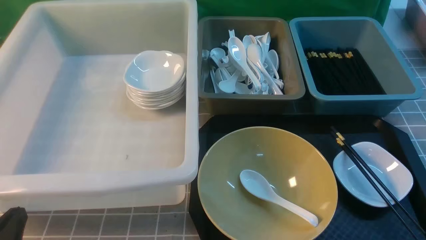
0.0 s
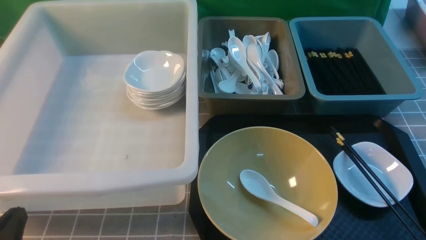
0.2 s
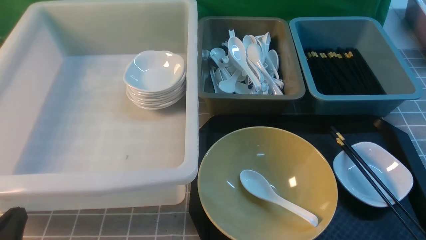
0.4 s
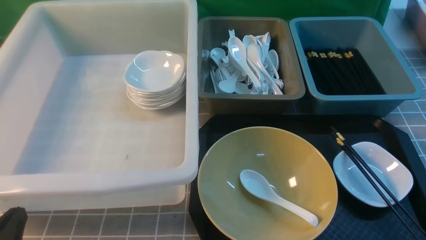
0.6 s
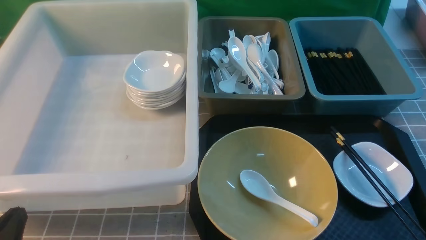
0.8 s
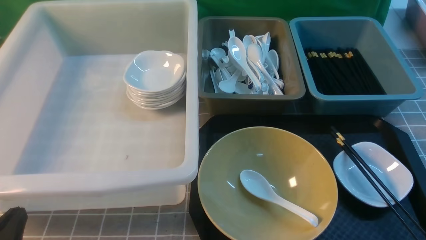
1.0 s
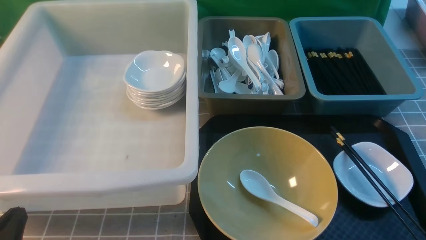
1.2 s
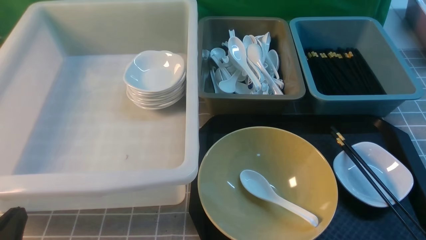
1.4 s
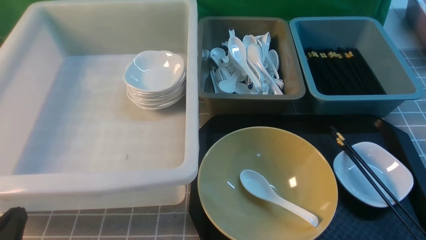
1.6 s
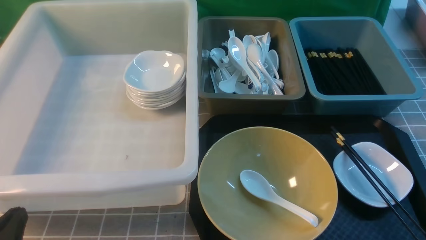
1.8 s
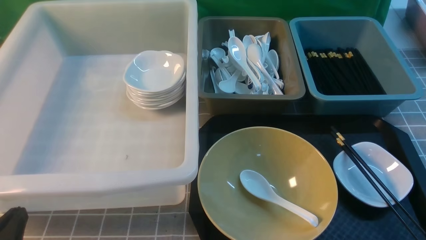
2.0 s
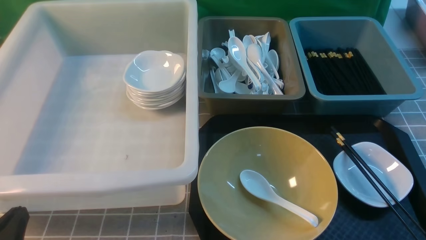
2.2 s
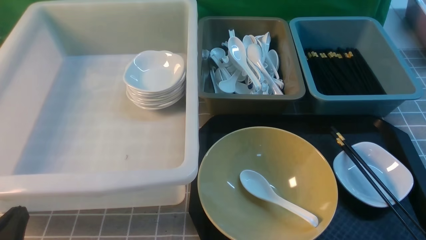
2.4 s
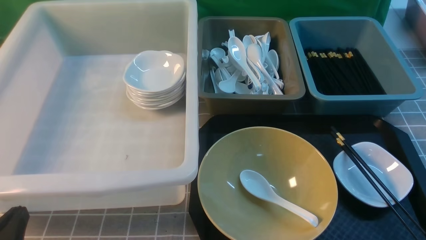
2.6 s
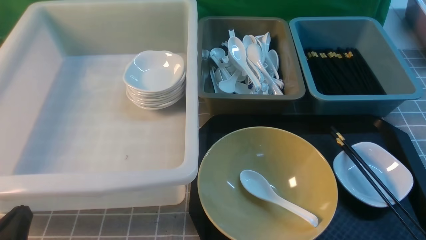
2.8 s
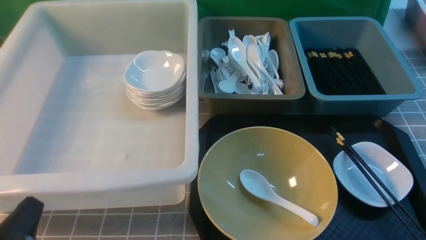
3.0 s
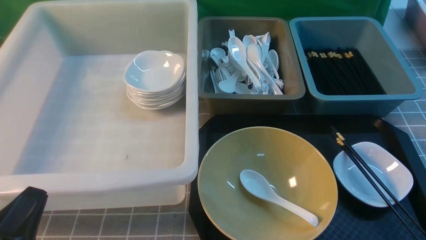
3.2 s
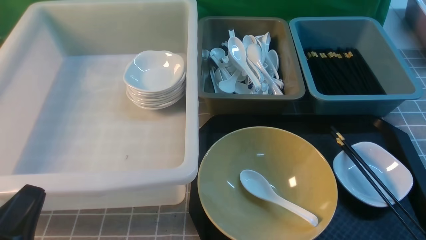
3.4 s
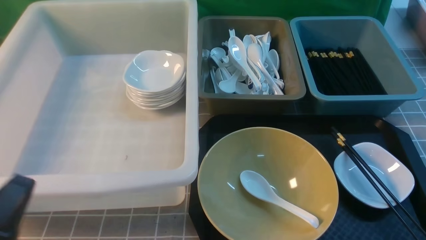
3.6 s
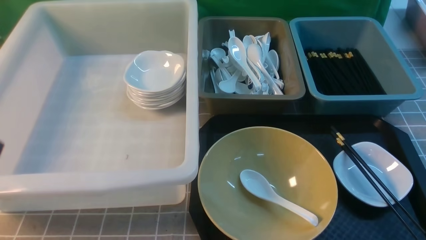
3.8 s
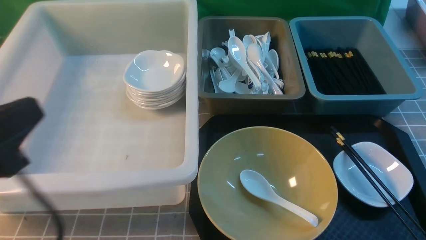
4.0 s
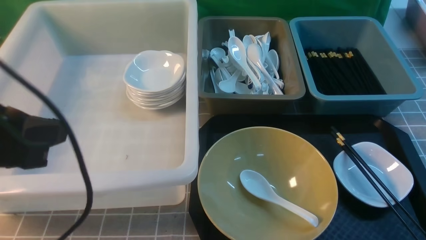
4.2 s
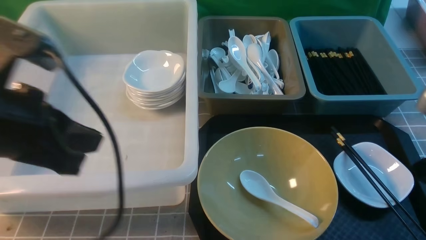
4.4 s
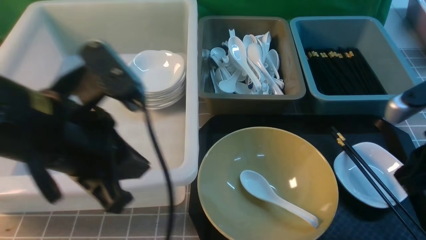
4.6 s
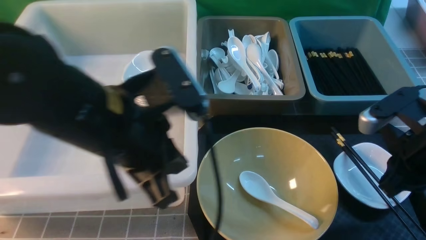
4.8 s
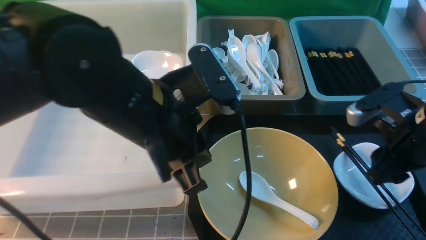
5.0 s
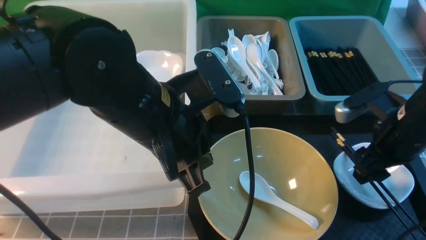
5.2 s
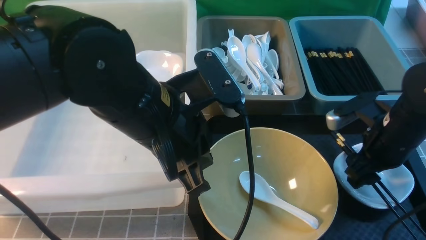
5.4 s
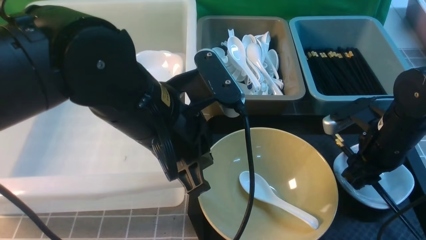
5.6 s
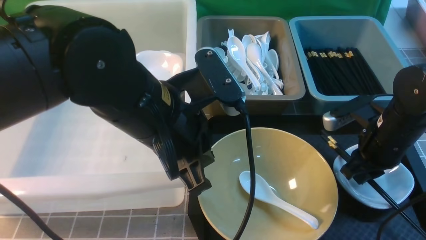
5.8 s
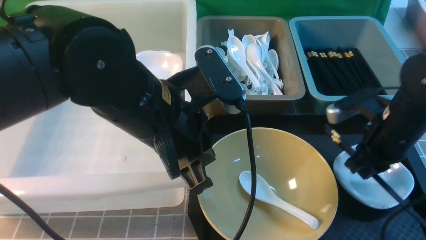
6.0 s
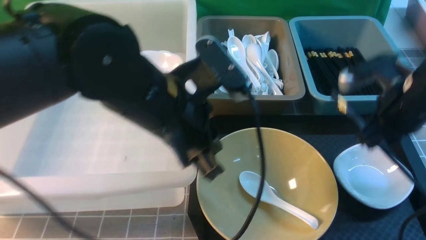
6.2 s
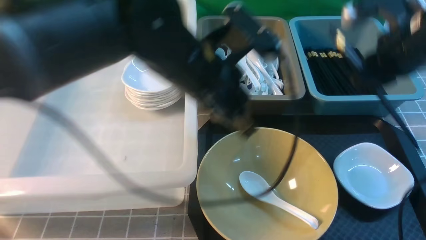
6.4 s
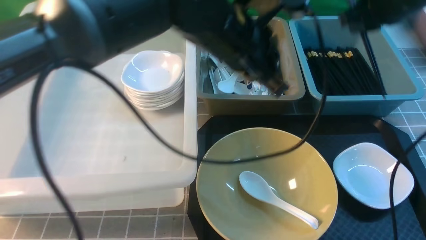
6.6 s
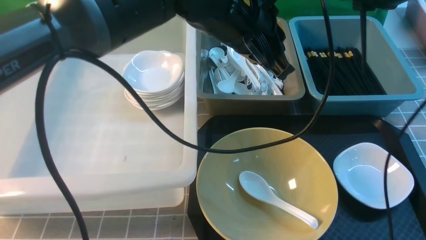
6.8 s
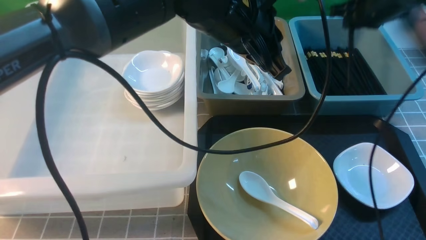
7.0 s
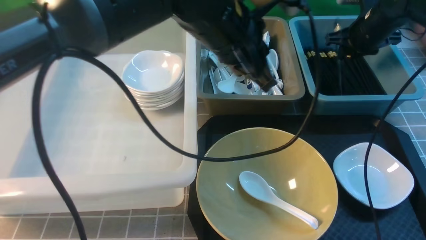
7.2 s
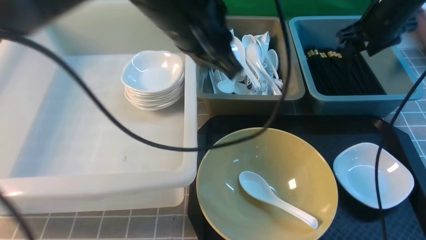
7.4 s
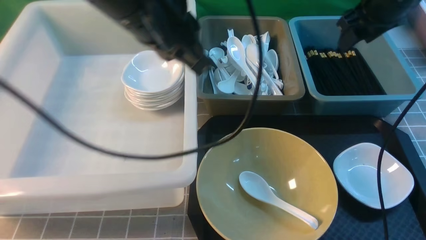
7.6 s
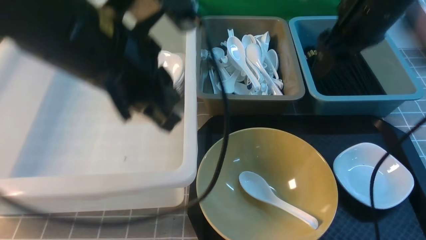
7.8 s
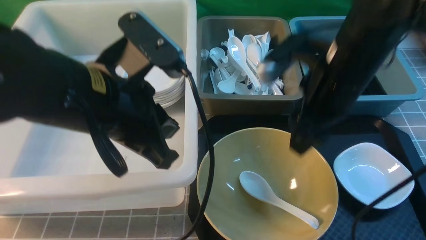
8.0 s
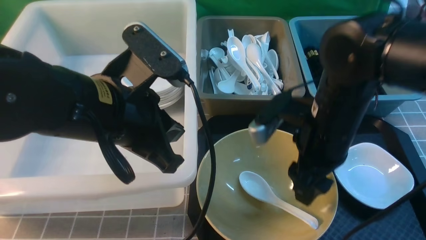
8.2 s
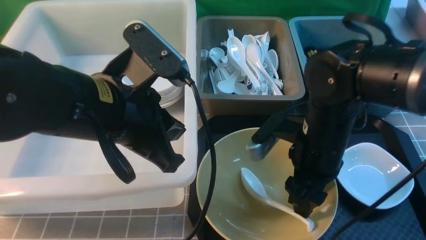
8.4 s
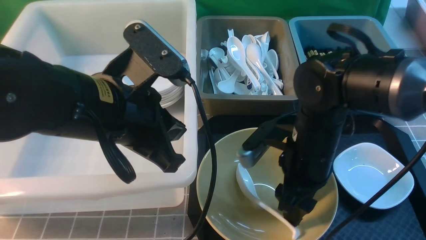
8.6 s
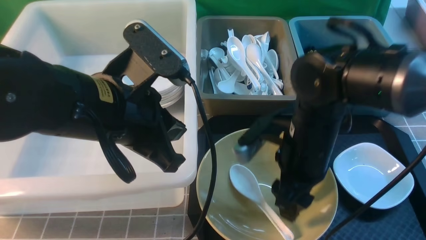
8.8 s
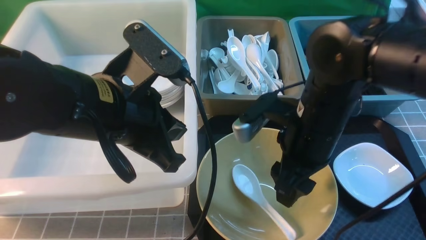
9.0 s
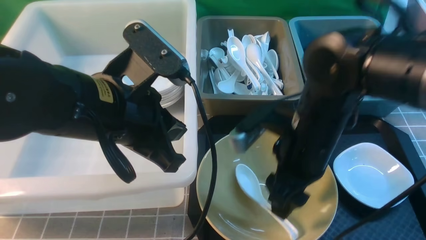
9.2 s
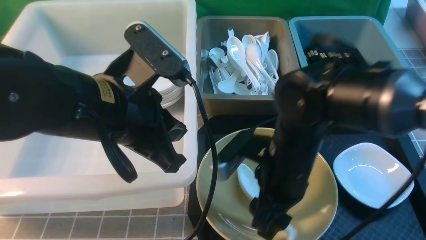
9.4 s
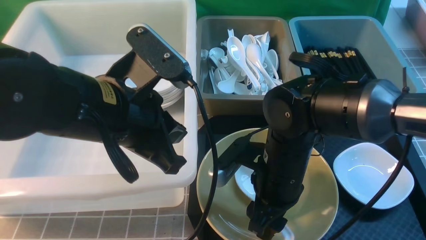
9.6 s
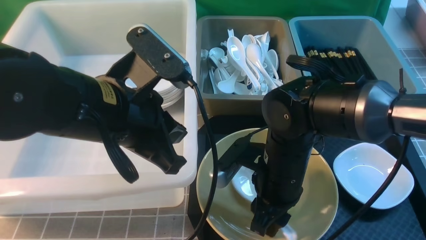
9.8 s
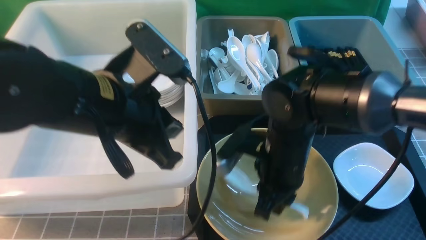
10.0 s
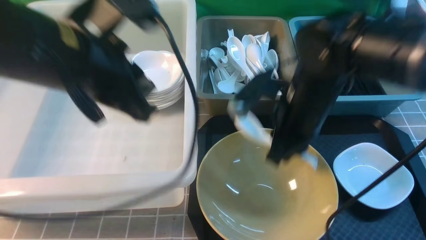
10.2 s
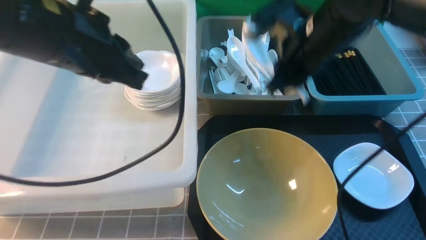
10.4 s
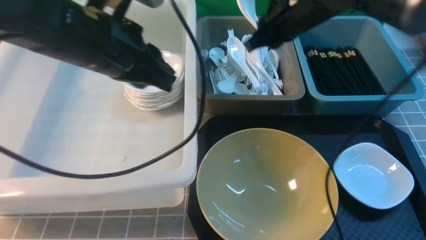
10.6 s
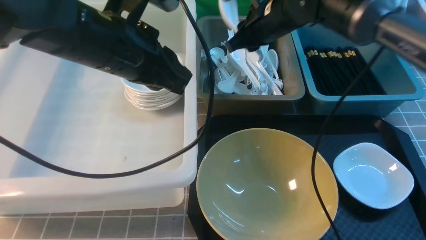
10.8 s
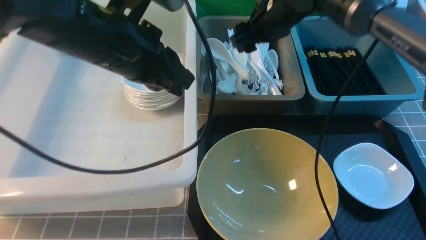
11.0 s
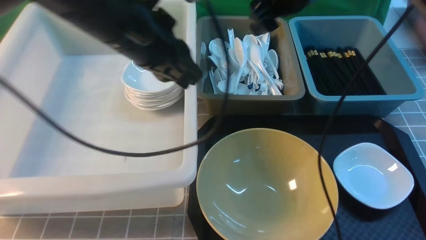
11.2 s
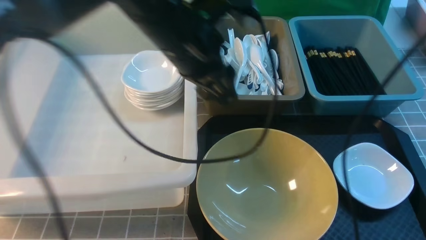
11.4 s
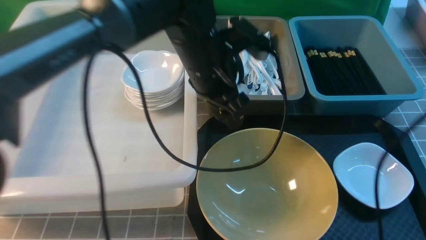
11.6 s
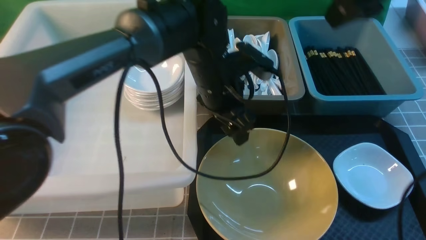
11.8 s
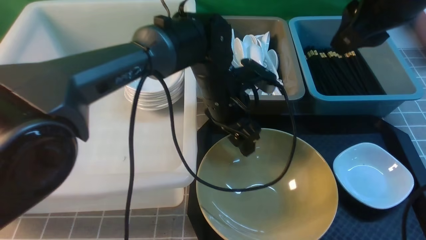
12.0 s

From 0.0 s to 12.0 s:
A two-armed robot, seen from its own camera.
Task of the whole recording: on grey table put chopsticks spoon bowls plates into blue grey white boxes.
Step, from 0.0 s to 6.2 s: use the right arm to grab the chopsticks.
Step, from 6.4 s to 7.2 s: use the right arm to put the chopsticks into the small storage box on the right.
Step, from 7.4 s to 10.0 s: use the right arm to grab the soup spoon in the middle.
Step, from 10.4 s to 11.2 s: use the right arm to put the soup spoon into the small storage box in the middle.
From 3.0 s to 4.4 s: The left gripper heads upward and forward, covering some 20 cm. Meanwhile the right gripper goes approximately 20 cm forward and upward, and closes up.
From 4.4 s to 6.0 s: The right gripper goes about 15 cm forward and downward, and opens, then closes again; the left gripper moves to the right, roughly 15 cm.
From 6.0 s to 7.6 s: The left gripper moves upward, some 10 cm; the right gripper moves upward and forward, approximately 15 cm, and opens.
From 7.6 s to 9.0 s: The left gripper travels downward and backward by some 10 cm. Meanwhile the right gripper travels backward, to the left and downward by approximately 20 cm.
From 9.0 s to 10.4 s: The right gripper heads forward and upward, covering roughly 10 cm, and closes up, while the left gripper shifts by some 5 cm.
From 10.4 s to 12.0 s: The left gripper moves to the right, downward and forward, some 25 cm, and opens up, while the right gripper shifts approximately 15 cm upward, to the right and backward, and opens up.

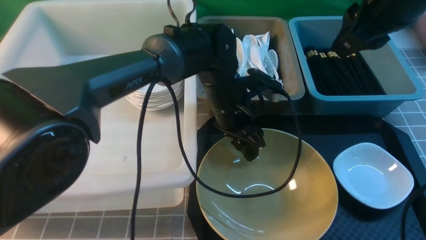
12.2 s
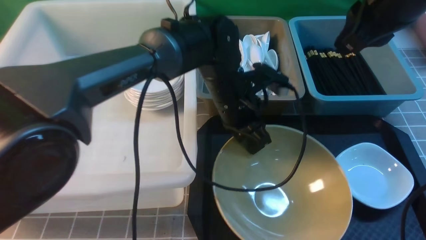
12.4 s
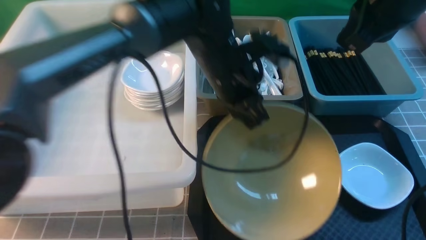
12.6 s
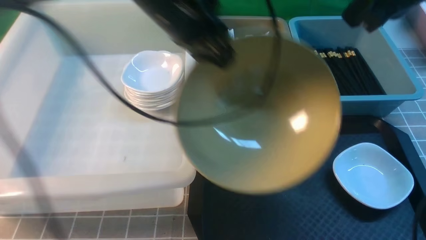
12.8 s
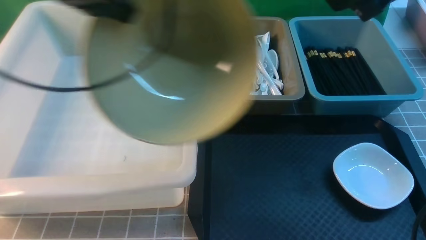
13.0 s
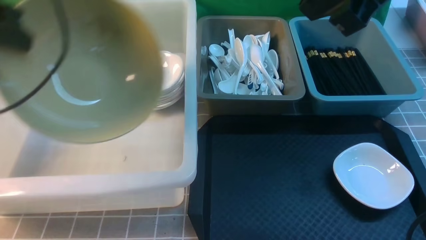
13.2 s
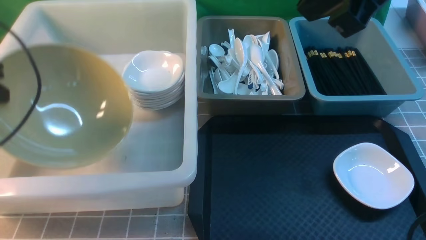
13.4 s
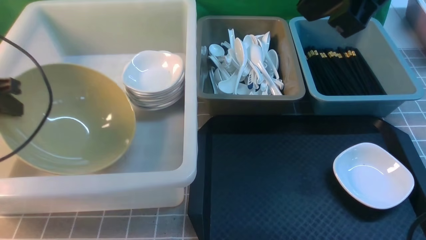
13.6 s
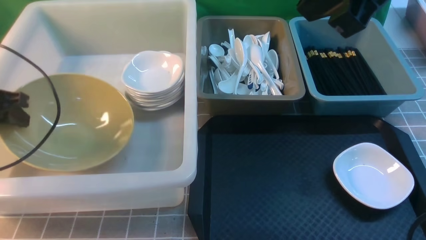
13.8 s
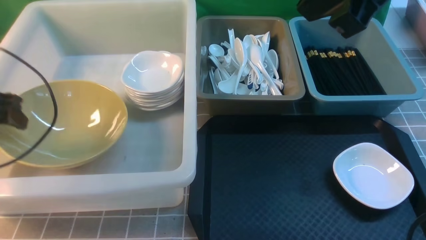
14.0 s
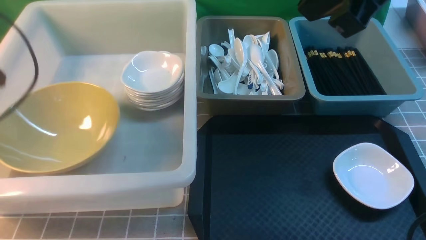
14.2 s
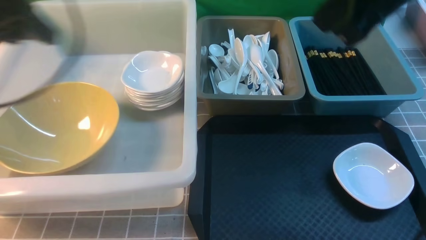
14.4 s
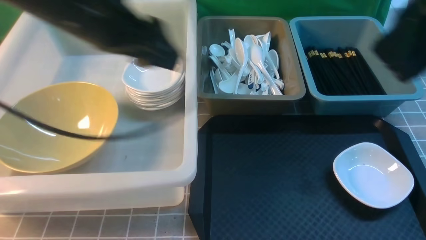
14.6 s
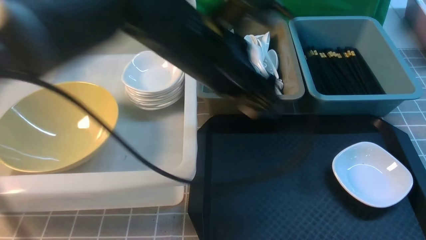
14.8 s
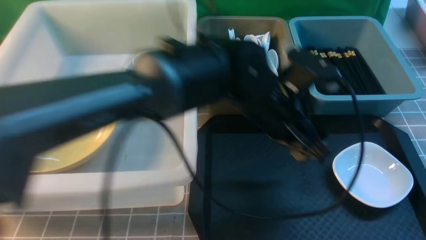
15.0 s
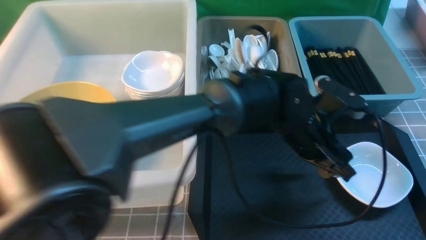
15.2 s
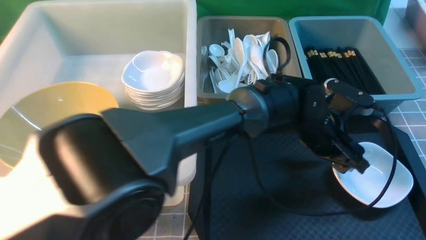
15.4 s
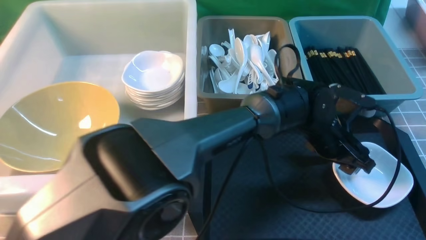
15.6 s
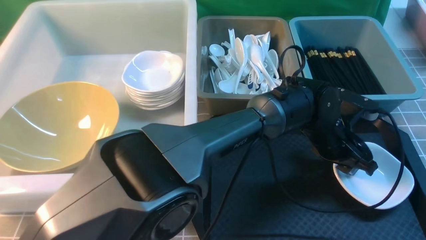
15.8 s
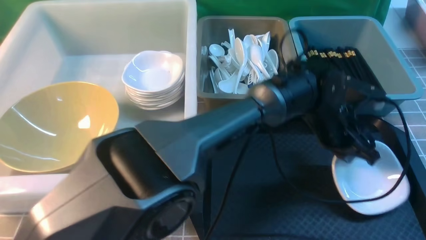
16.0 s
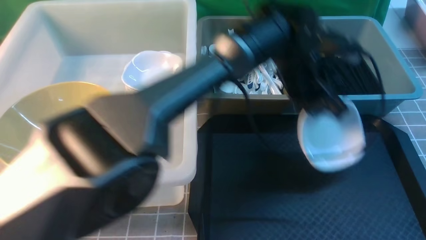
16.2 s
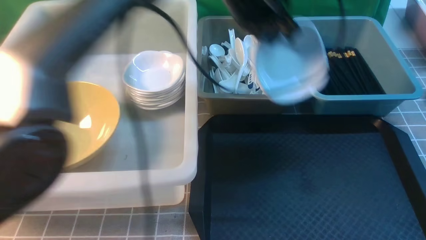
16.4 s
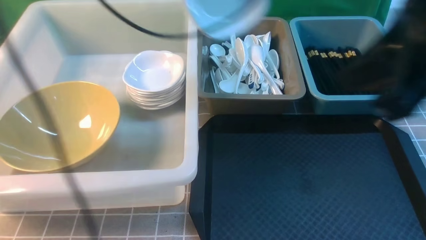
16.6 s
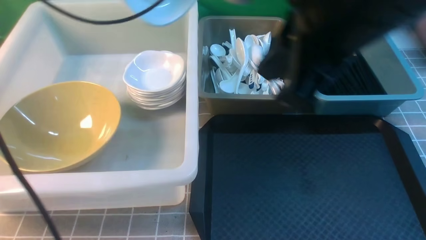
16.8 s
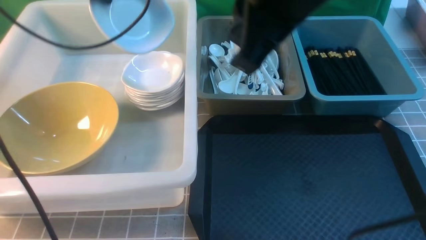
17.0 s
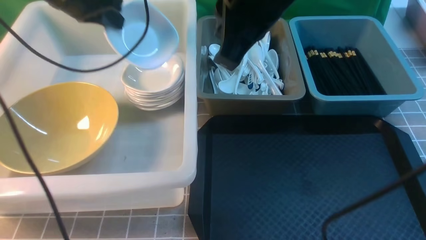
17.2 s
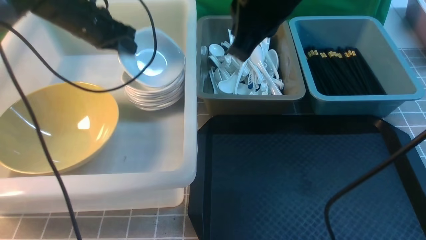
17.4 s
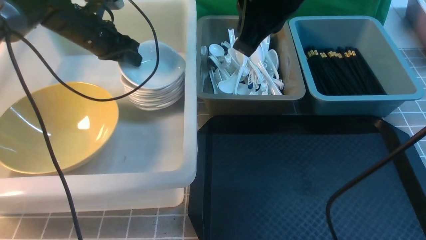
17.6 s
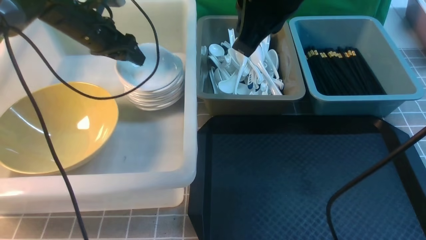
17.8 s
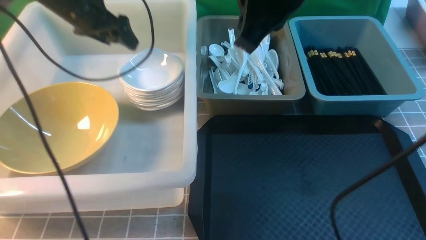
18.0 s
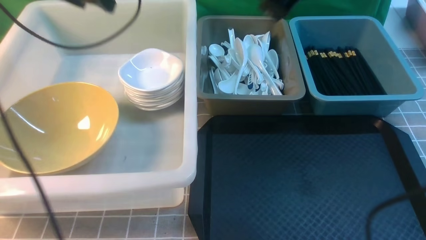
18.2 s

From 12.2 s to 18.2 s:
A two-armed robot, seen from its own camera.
Task of the whole recording: on grey table put chopsticks spoon bowls plates into blue grey white boxes.
Step, from 12.8 s to 14.0 s: use the left arm to put the noodle bowl into the large storage box on the left.
Step, from 14.2 s to 16.0 s: use the left arm to grab the plate.
Step, from 16.2 s to 18.0 s: use the left arm to put the plate into the large storage box on the left.
From 12.2 s to 13.8 s: The left gripper is displaced to the left by approximately 40 cm, and closes, then reopens. The right gripper goes approximately 10 cm upward and backward, and closes up.
From 13.8 s to 15.2 s: The left gripper moves to the right, about 50 cm, and opens, while the right gripper shifts roughly 20 cm backward, to the right and downward.
From 15.2 s to 16.6 s: The left gripper travels upward and to the left by some 35 cm, and closes its fingers. The right gripper shifts approximately 15 cm to the left, forward and upward.
From 16.6 s to 18.2 s: The left gripper goes some 15 cm to the left, reaches approximately 20 cm downward, then returns, and opens up; the right gripper is displaced forward by about 5 cm.
